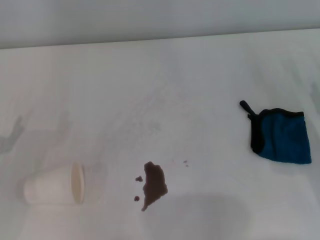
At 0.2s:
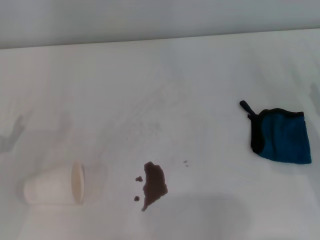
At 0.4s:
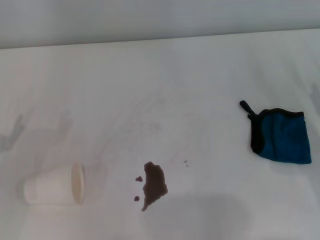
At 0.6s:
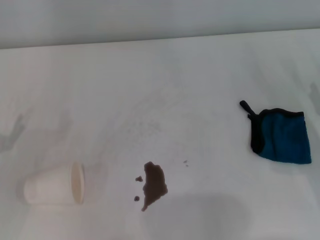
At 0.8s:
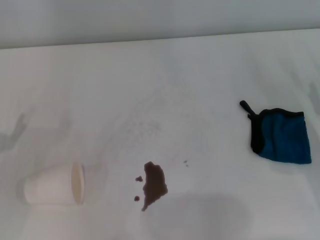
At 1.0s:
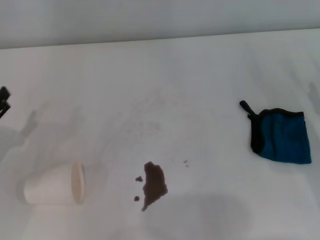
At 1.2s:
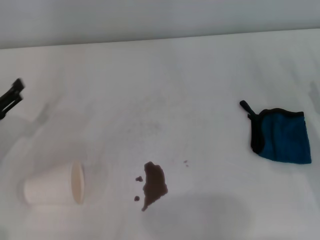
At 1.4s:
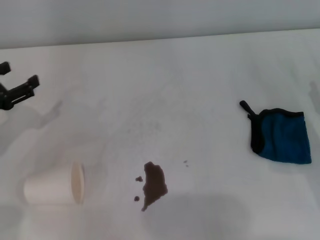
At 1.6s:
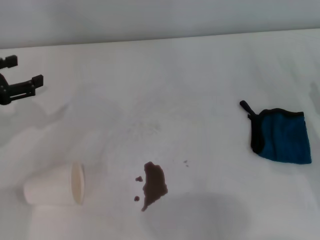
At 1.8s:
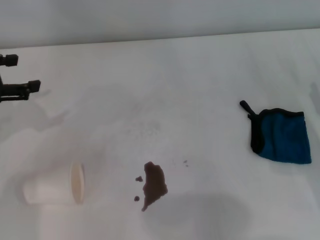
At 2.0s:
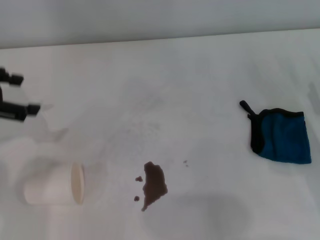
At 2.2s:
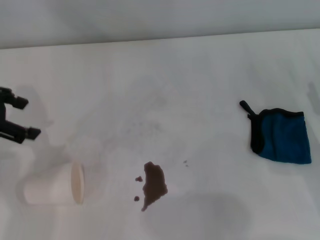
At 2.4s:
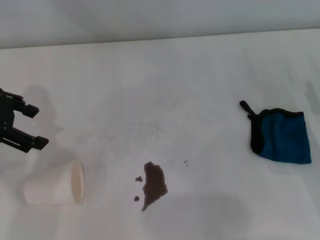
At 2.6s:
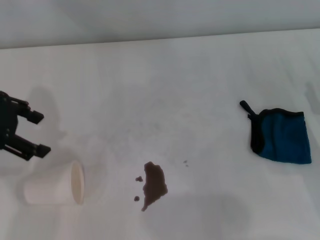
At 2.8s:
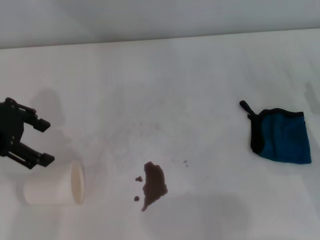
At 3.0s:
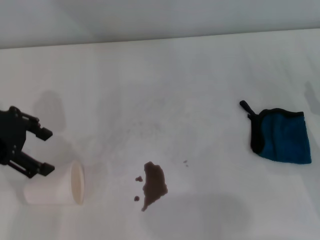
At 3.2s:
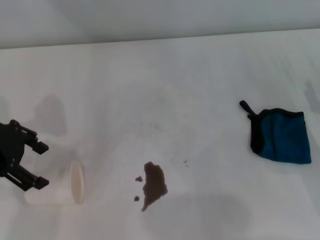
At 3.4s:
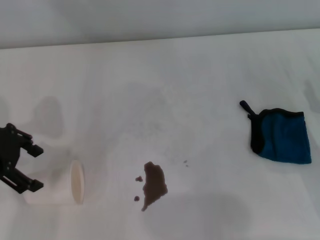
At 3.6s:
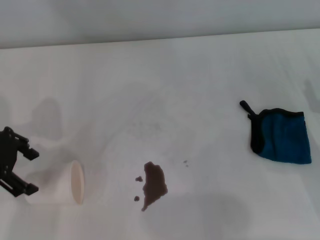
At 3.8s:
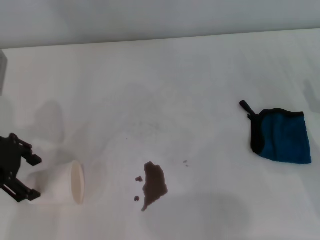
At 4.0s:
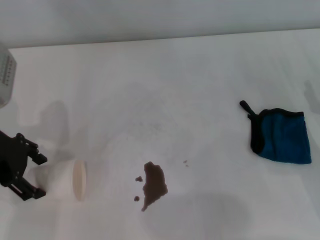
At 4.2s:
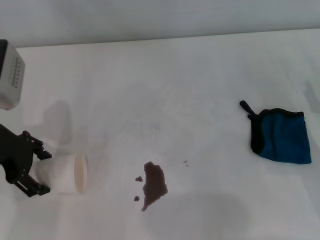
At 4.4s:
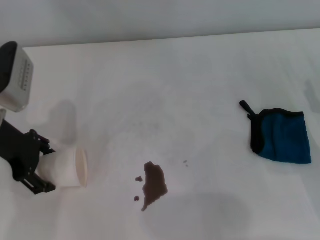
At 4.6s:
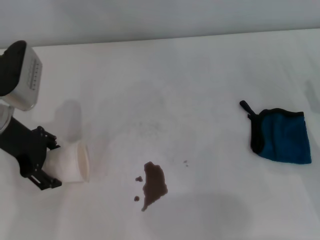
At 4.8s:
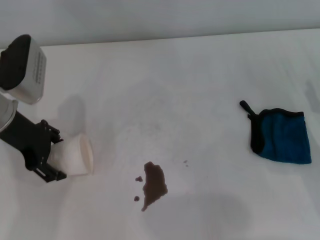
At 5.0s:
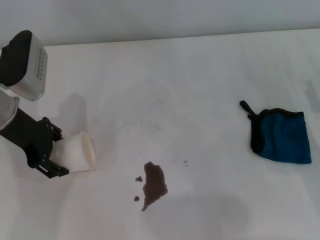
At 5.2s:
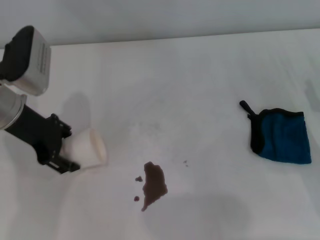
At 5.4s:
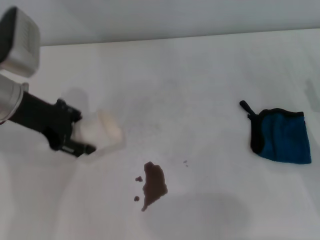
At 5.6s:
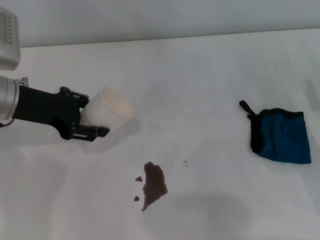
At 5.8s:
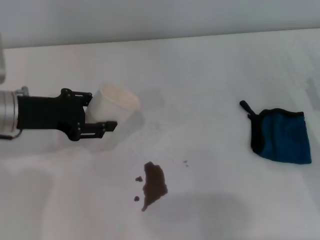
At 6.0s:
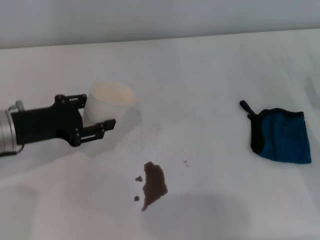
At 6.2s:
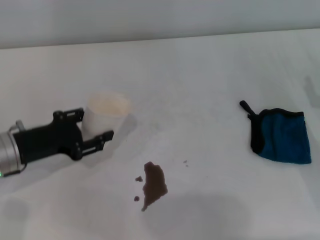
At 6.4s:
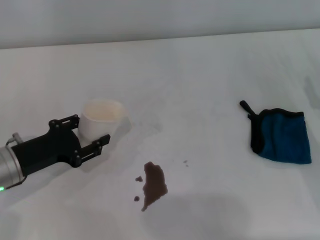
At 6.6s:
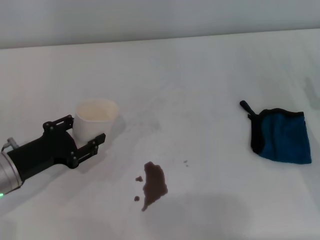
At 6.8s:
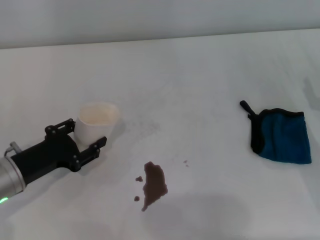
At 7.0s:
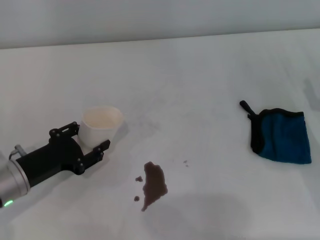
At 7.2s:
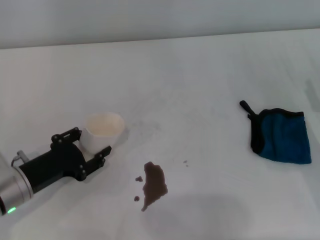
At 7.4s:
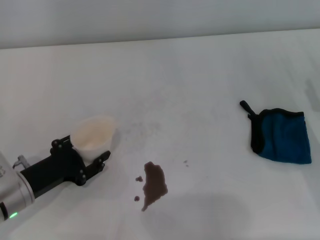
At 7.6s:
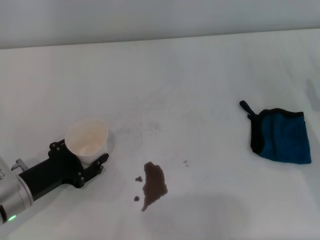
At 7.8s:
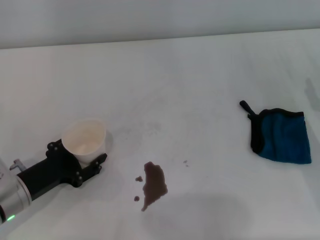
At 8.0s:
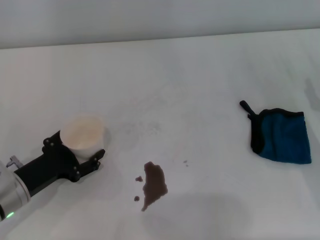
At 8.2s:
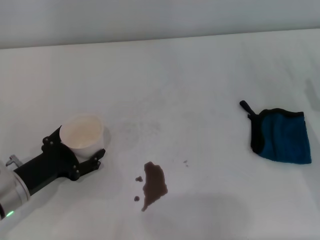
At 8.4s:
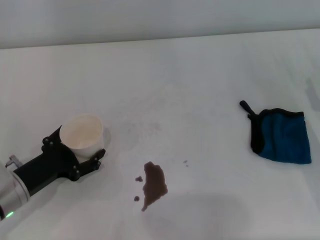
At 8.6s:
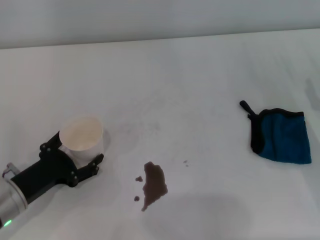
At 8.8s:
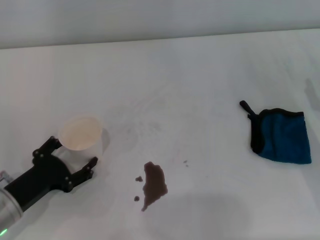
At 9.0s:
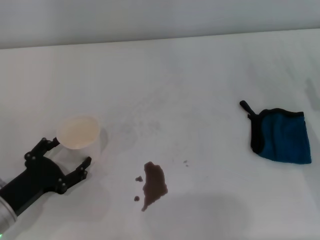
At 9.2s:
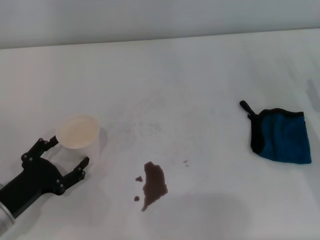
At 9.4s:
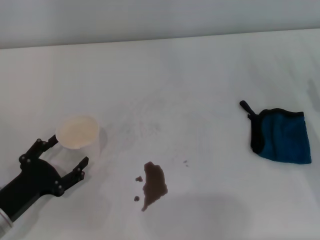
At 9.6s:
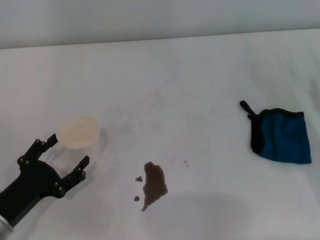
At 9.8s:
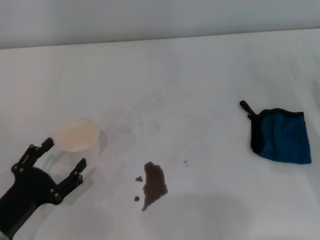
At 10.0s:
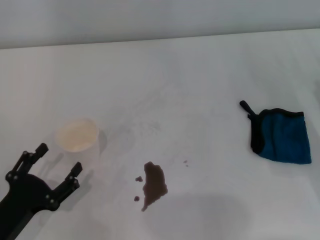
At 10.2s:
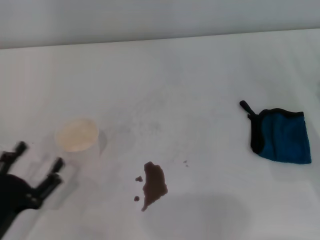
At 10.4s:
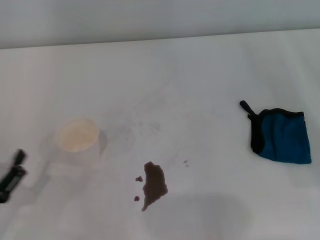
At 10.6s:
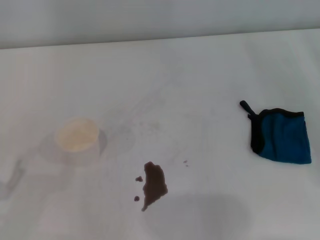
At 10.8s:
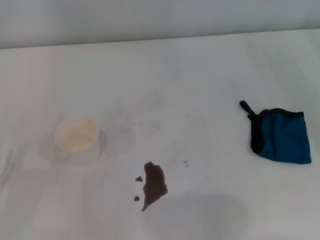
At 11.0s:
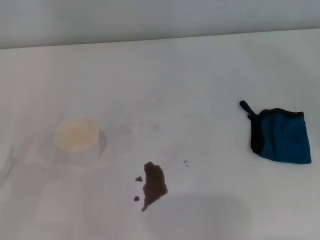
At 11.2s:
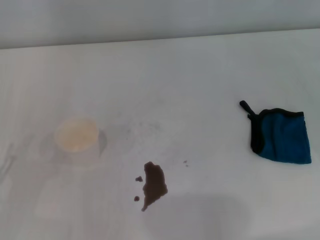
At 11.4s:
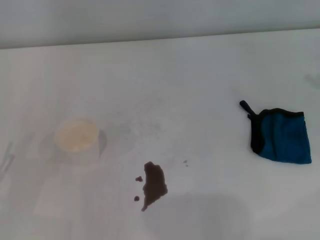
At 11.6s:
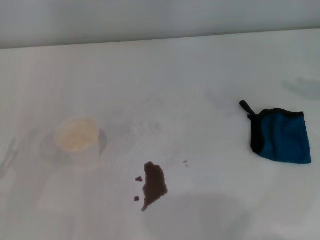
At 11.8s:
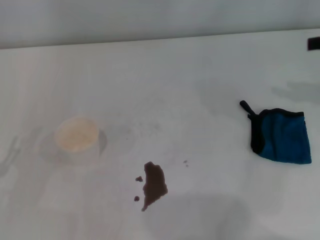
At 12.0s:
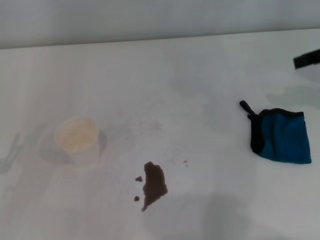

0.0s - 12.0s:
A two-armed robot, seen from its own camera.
Step, 0.0s - 4.4s: Grasp the paper cup with the left gripper.
Step, 4.8s - 9.6s: Stand the paper cup upright with the left gripper.
0.0s - 1.6s: The left gripper travels upward and forward by some 15 cm.
1.6s - 3.0s: The left gripper goes roughly 10 cm upward and to the right.
3.0s - 4.4s: The left gripper heads downward, covering about 5 cm.
4.4s - 6.0s: The left gripper changes place by approximately 5 cm, and closes its fingers.
6.0s - 7.6s: The left gripper goes roughly 10 cm downward and backward.
7.6s - 9.0s: The left gripper opens.
9.0s - 10.4s: The left gripper goes roughly 5 cm backward.
10.4s - 12.0s: The right gripper moves upward and forward, some 20 cm. Meanwhile the left gripper ends up some 5 cm from where it was.

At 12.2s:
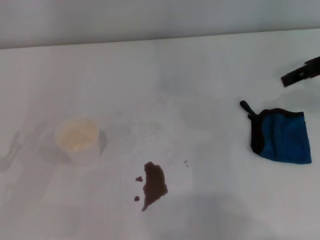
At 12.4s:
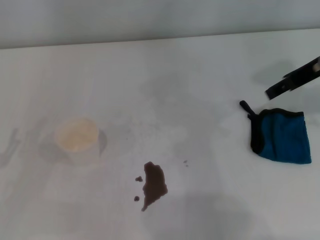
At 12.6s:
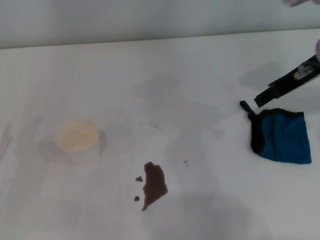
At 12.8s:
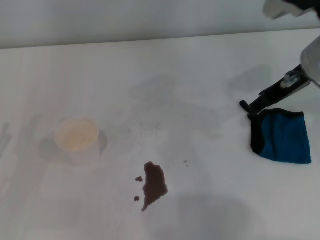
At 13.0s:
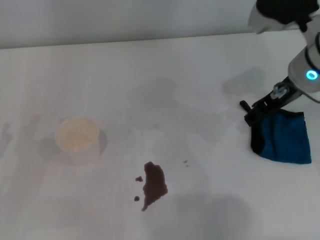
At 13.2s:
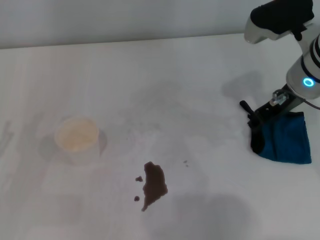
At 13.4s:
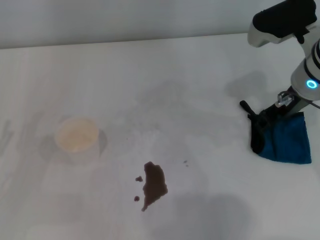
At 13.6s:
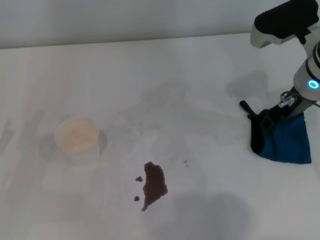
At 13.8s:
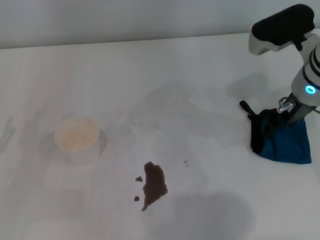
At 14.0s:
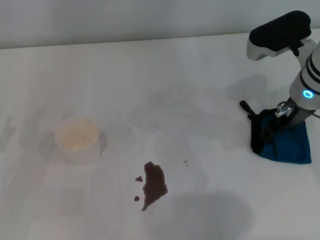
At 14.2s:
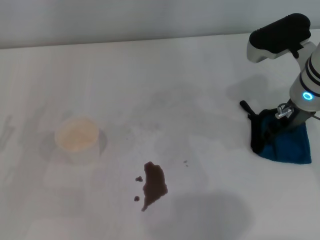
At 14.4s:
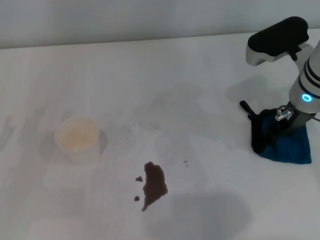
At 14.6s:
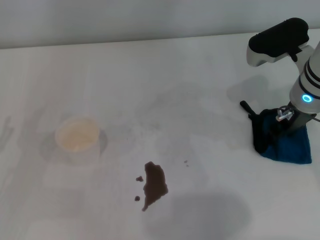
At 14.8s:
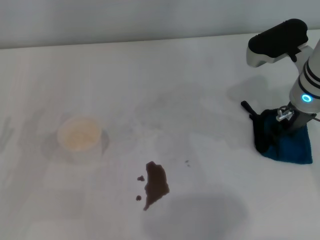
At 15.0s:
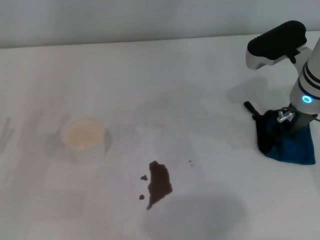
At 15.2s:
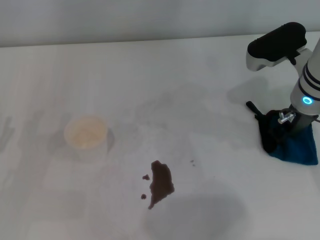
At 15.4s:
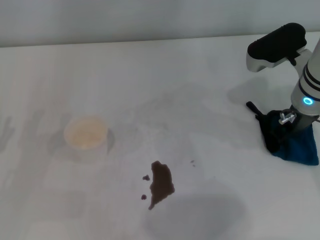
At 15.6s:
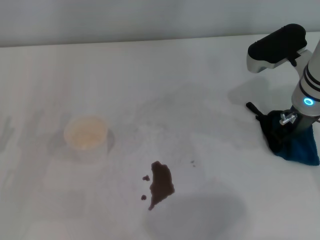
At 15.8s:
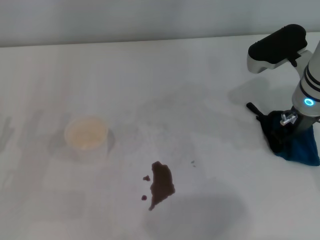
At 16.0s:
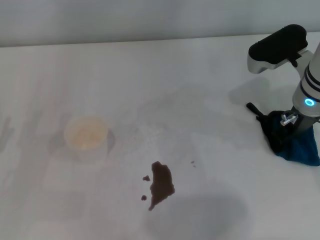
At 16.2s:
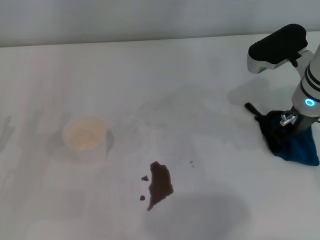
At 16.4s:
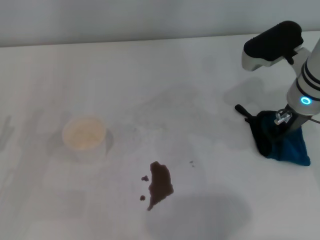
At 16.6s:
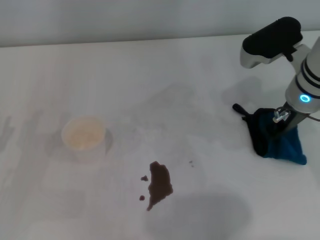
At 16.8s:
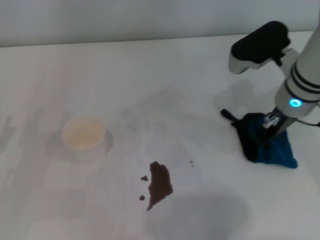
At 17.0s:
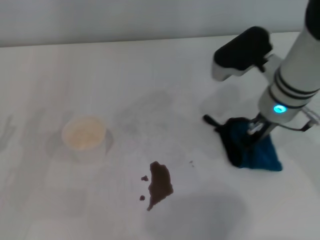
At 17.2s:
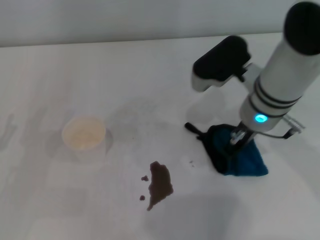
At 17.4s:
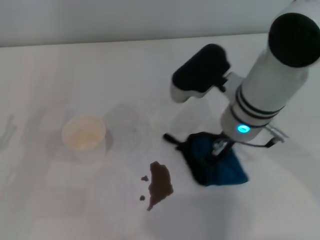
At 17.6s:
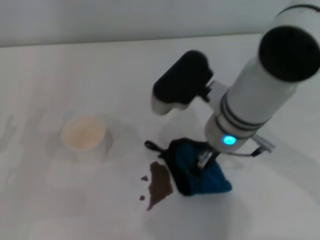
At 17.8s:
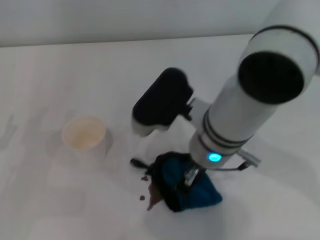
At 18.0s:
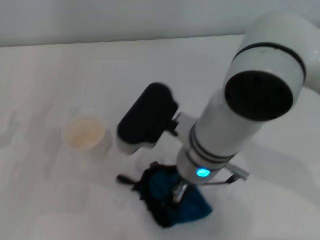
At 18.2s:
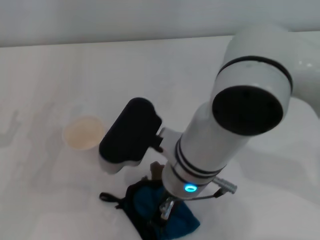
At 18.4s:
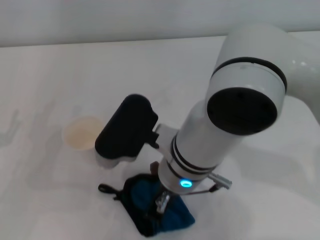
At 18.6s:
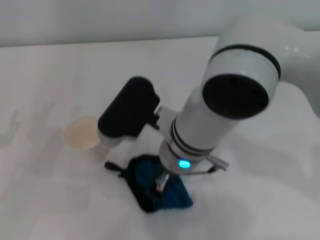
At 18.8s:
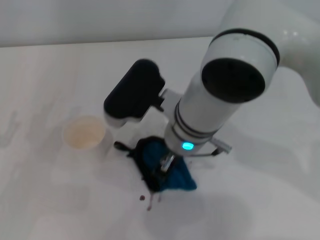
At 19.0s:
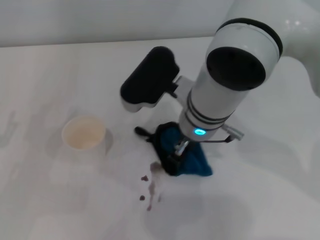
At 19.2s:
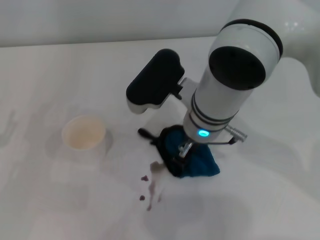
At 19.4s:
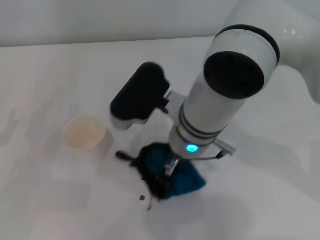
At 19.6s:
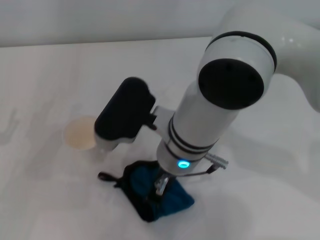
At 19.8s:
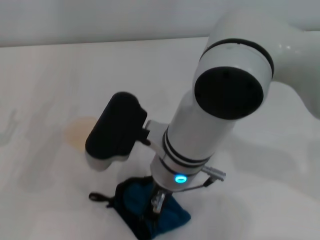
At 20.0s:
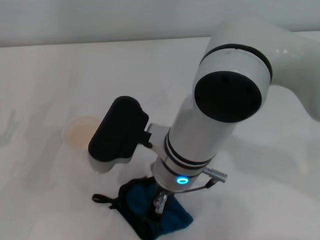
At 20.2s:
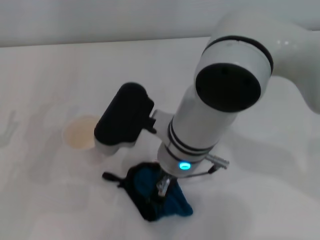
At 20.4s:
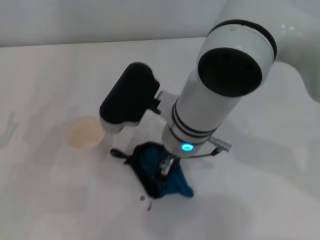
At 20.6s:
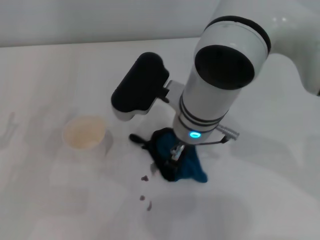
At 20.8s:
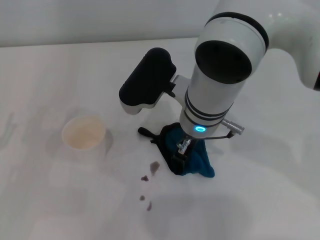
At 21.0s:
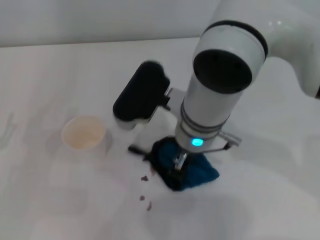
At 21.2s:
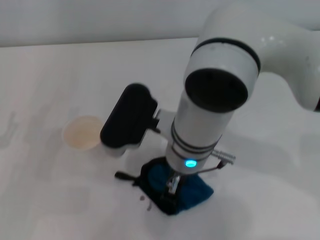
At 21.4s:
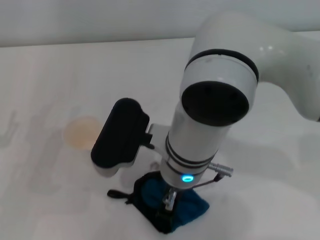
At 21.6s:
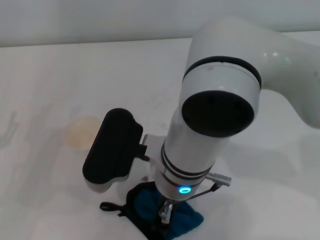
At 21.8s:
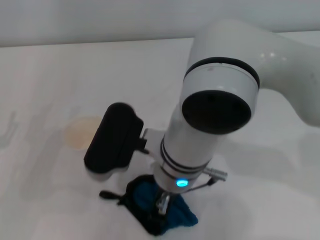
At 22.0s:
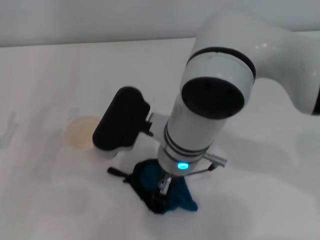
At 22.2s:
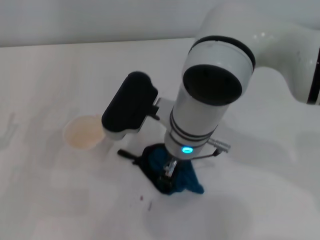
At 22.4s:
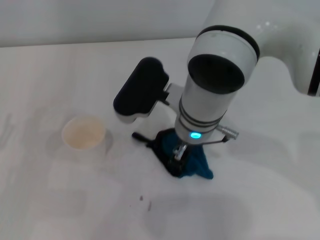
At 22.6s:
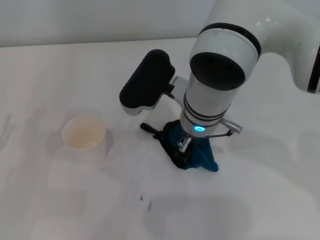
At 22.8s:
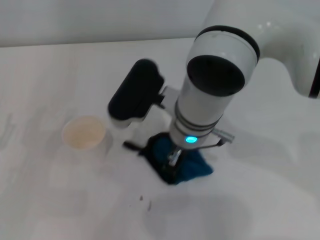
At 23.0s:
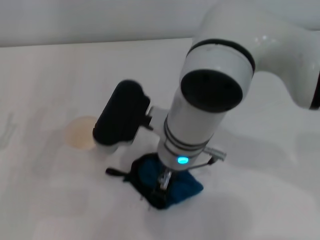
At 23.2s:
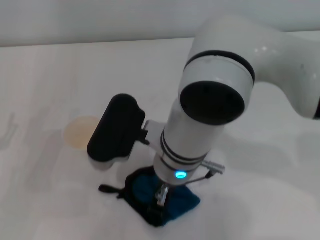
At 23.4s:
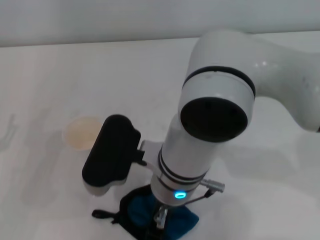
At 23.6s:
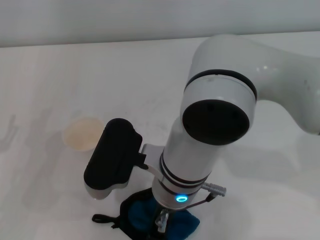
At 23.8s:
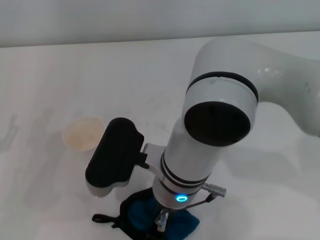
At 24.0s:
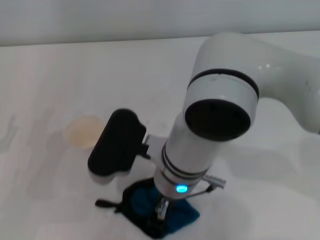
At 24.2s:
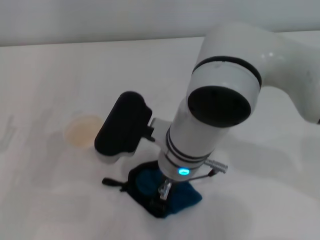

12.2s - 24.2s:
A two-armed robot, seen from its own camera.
Step, 12.2s - 16.0s: Grasp the rag with the right gripper.
12.2s - 13.8s: The right gripper heads to the left and downward, covering some 10 cm.
13.8s - 15.2s: The right gripper closes its fingers.
15.2s - 16.6s: The right gripper closes up.
16.6s - 18.2s: The right gripper heads to the left and backward, covering approximately 20 cm.
21.2s - 22.6s: The right gripper ends up about 5 cm from where it was.
22.6s - 24.2s: The right gripper travels backward by about 5 cm.
